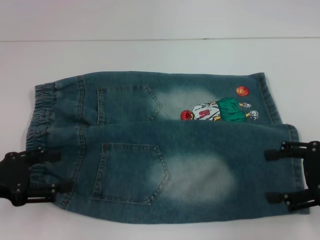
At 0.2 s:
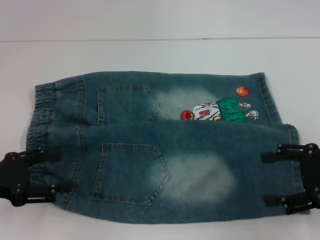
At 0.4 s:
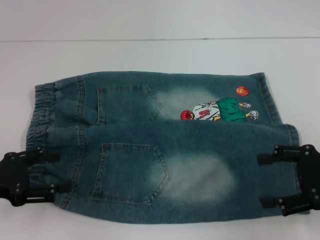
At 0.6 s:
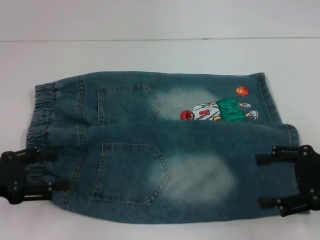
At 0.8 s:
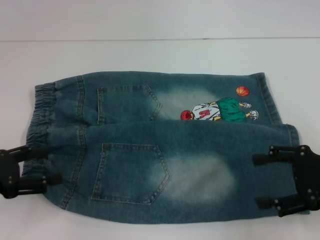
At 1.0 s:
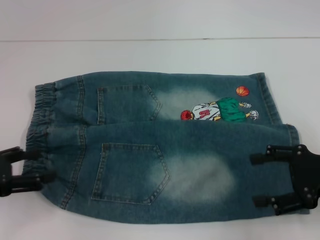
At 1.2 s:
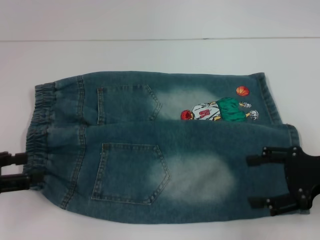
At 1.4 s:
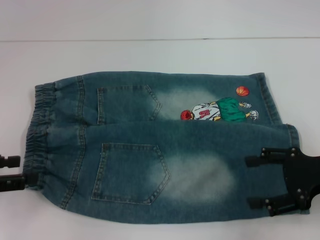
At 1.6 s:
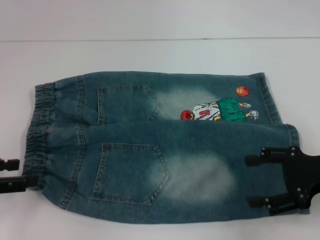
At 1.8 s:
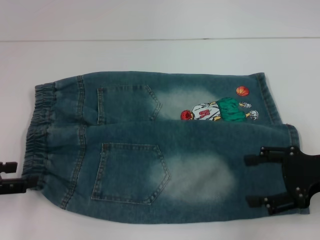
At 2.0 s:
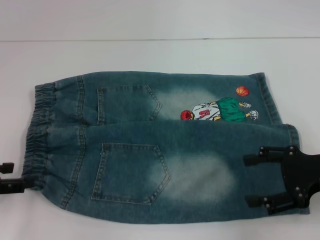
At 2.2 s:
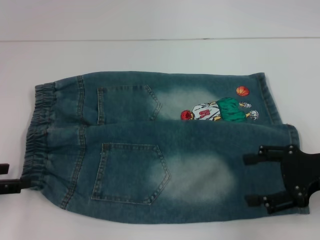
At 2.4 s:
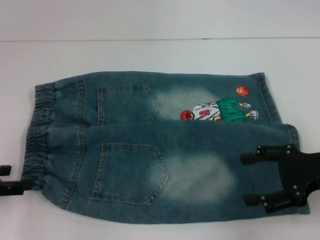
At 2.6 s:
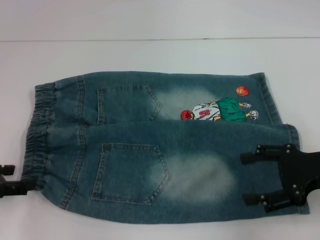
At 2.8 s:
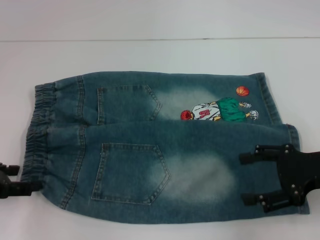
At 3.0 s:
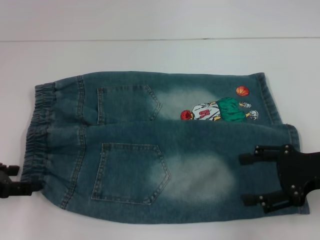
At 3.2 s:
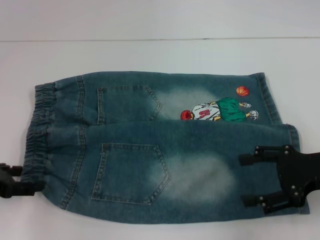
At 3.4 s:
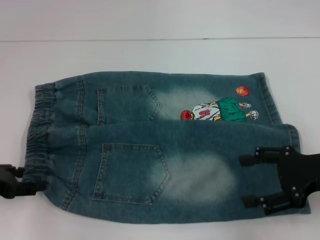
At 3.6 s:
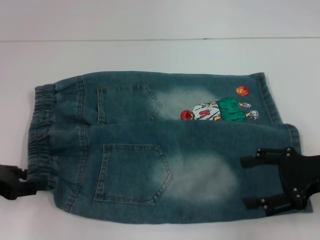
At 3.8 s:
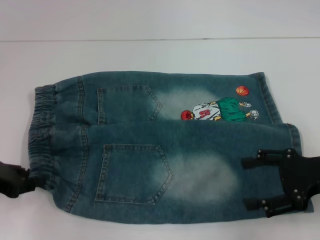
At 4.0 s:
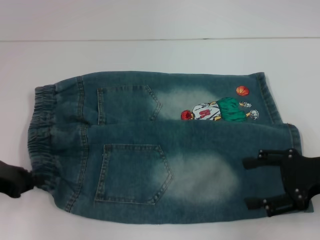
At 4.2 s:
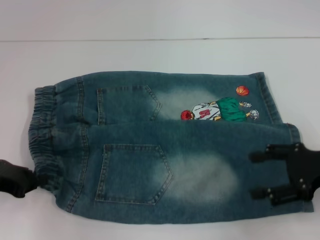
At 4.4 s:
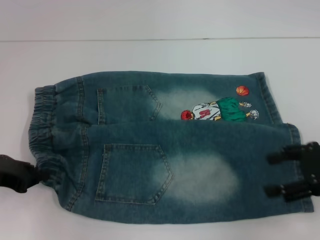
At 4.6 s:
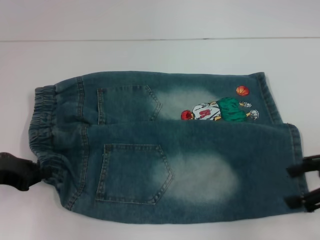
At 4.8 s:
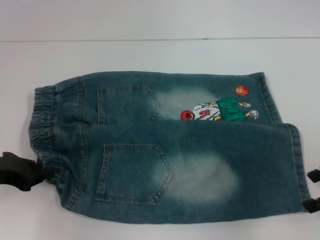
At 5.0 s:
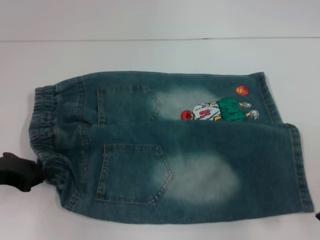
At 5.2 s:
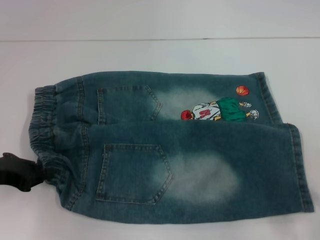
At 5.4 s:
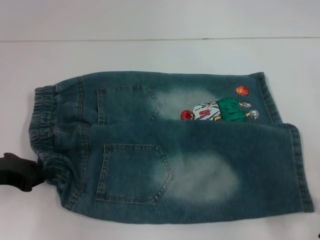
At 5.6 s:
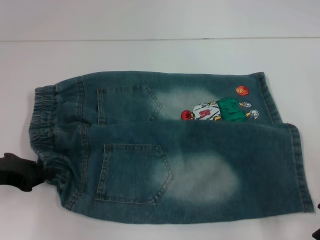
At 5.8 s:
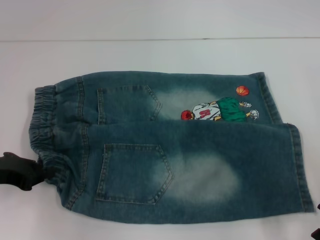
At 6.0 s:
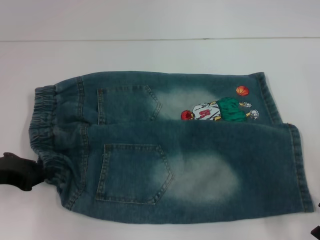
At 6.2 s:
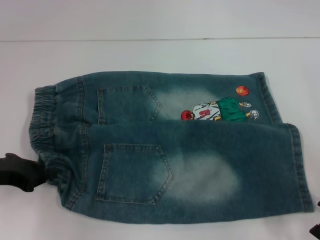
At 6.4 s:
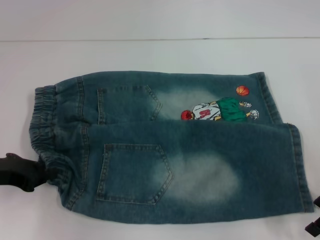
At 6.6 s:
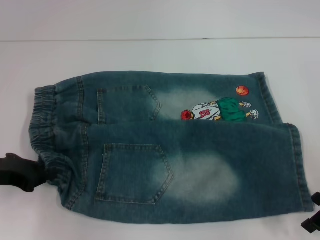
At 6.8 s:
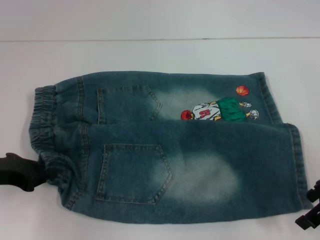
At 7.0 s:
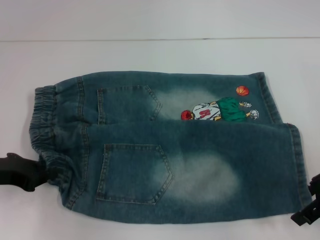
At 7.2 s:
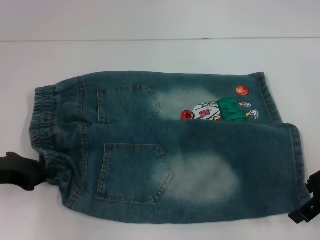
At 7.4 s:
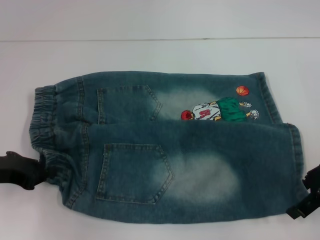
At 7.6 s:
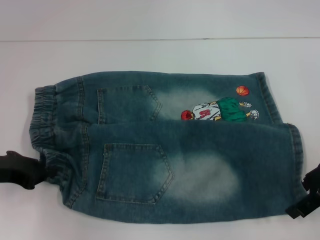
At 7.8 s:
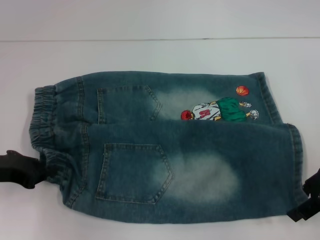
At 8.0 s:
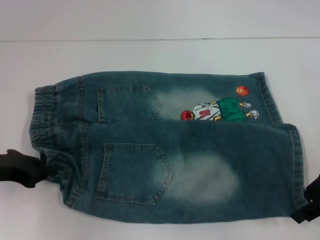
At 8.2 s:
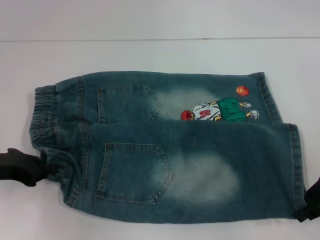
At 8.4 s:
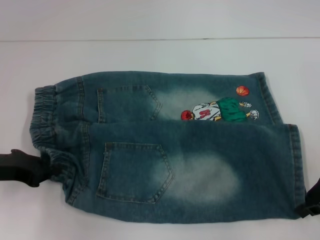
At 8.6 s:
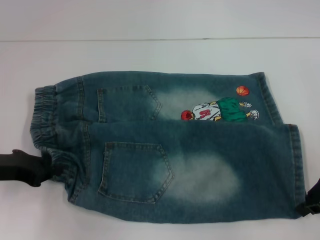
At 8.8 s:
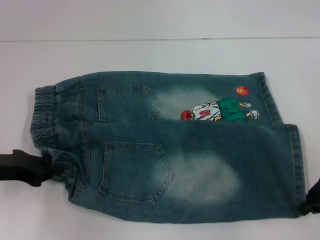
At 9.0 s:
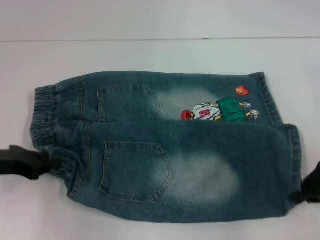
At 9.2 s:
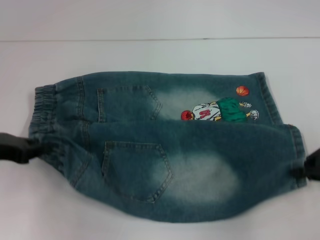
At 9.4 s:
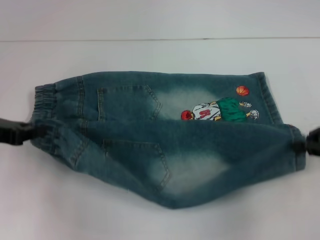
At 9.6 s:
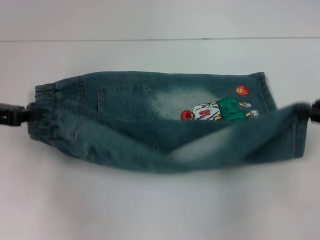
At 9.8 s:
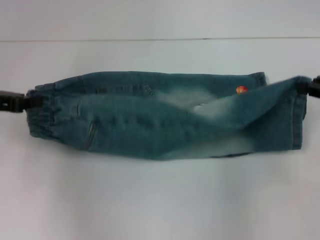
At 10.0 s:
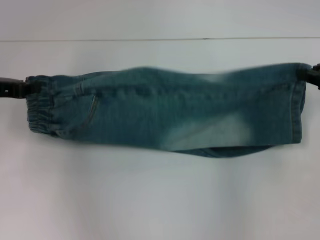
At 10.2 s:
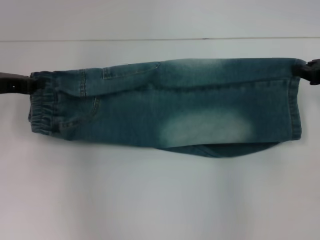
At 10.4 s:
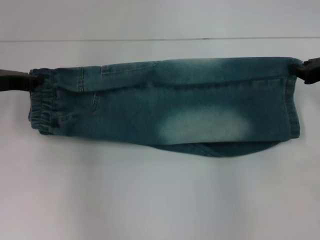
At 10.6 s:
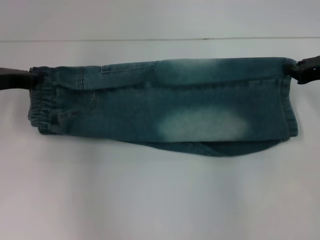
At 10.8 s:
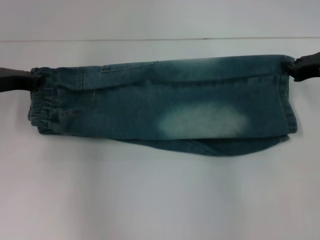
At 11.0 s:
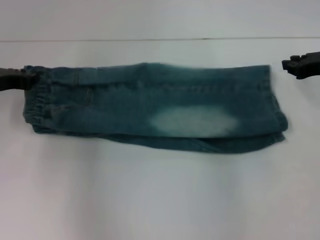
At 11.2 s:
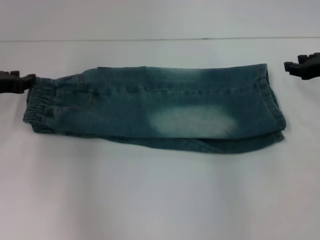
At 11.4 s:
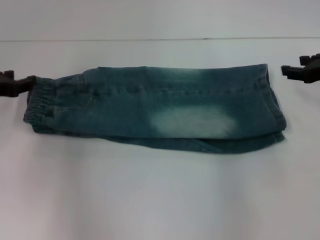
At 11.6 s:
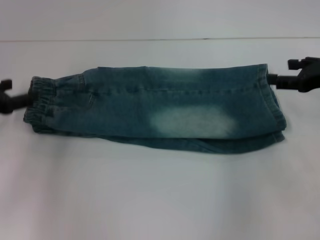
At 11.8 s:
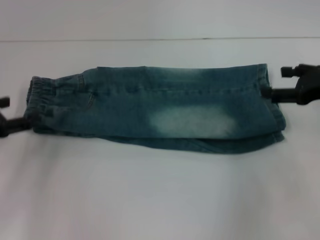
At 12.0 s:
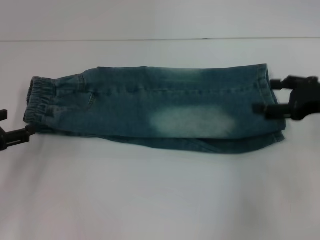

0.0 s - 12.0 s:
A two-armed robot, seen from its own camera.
Step, 0.0 s - 3.6 s: Hold the lower left waistband with your left hand.
Step, 3.8 s - 8.8 s: Grab the lower right pant leg with your right hand.
Step, 9.0 s - 11.2 s: Fold upward with your right hand.
1.6 s - 3.0 s: There are only small adjustments of the grippers.
3.0 s - 4.4 s: The left gripper closes its fingers.
6.0 s - 7.6 s: There are only small adjustments of the grippers.
7.6 s - 9.0 s: The right gripper closes its fingers.
9.0 s - 10.4 s: The grippers both shift forward by some 10 cm.
10.4 s - 12.0 s: The right gripper shifts by some 5 cm, and opens. Meanwhile the left gripper is displaced backward by roughly 10 cm, and opens its fingers.

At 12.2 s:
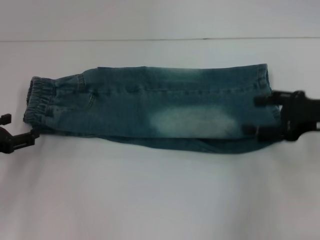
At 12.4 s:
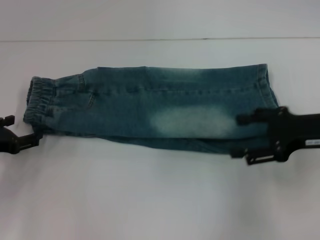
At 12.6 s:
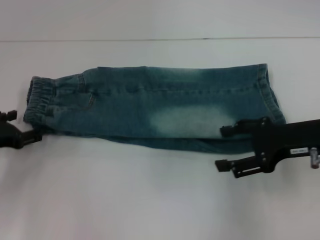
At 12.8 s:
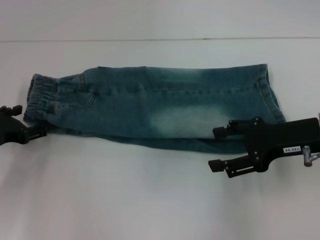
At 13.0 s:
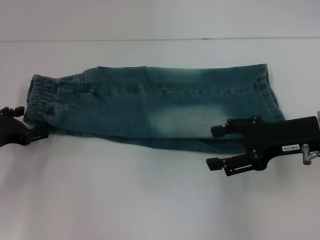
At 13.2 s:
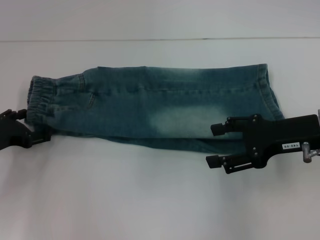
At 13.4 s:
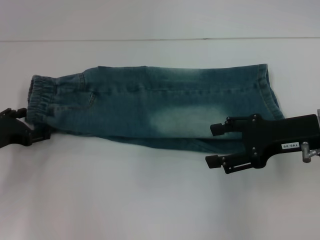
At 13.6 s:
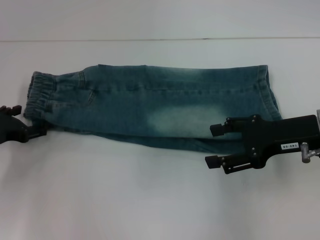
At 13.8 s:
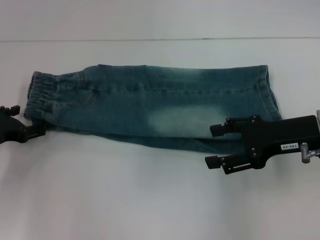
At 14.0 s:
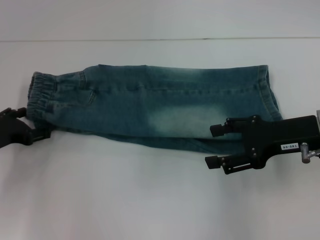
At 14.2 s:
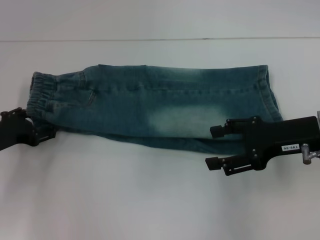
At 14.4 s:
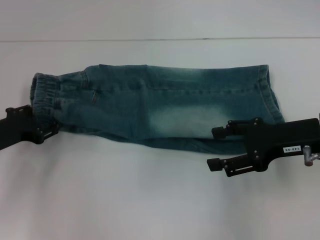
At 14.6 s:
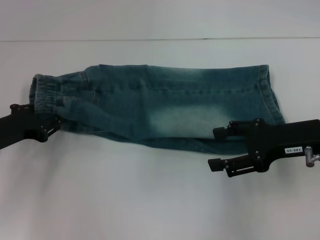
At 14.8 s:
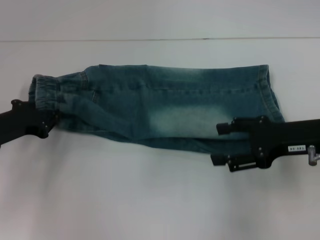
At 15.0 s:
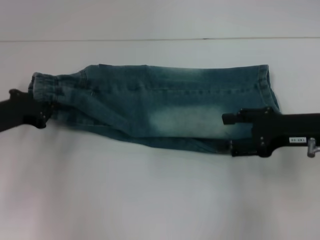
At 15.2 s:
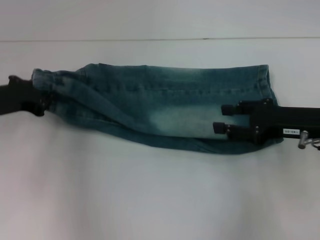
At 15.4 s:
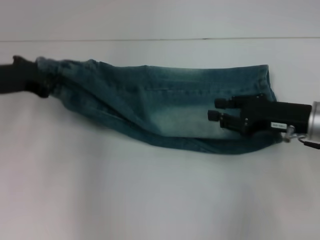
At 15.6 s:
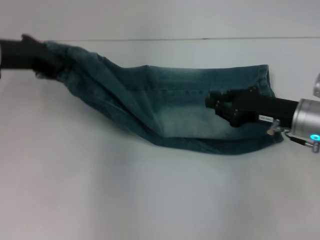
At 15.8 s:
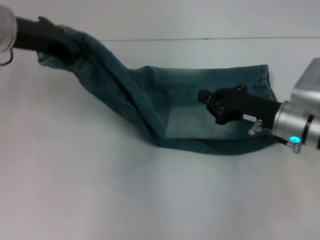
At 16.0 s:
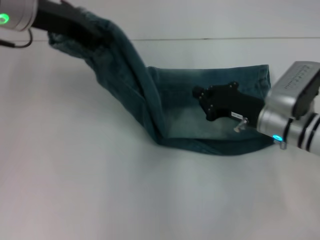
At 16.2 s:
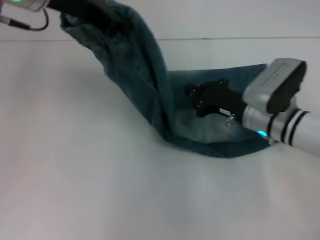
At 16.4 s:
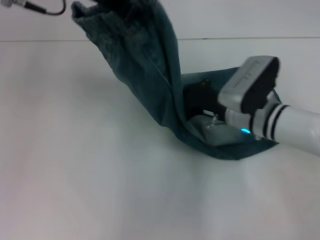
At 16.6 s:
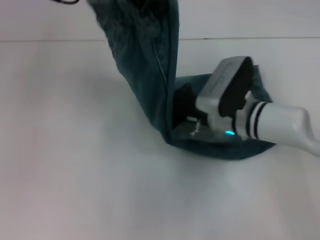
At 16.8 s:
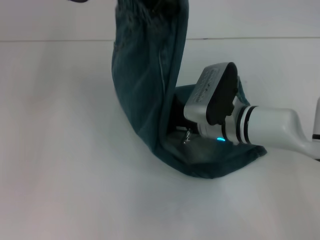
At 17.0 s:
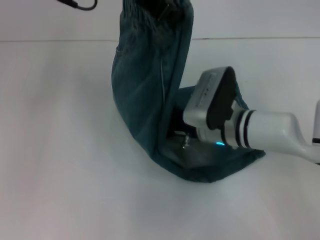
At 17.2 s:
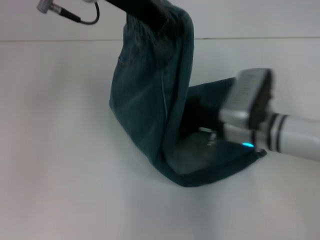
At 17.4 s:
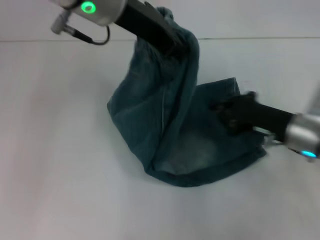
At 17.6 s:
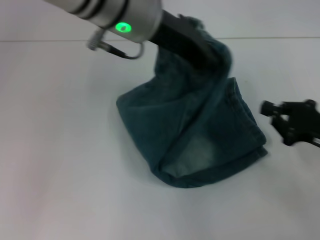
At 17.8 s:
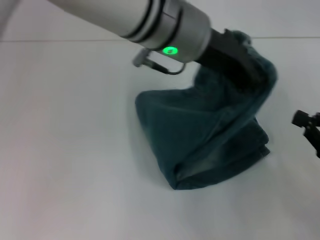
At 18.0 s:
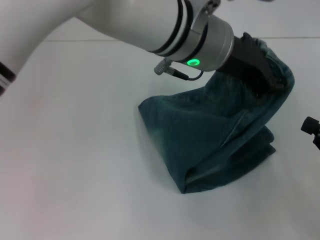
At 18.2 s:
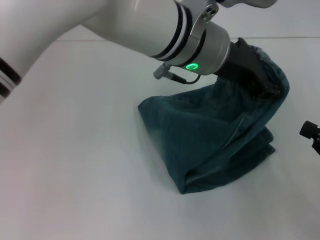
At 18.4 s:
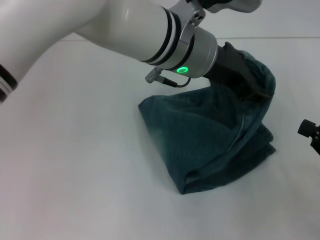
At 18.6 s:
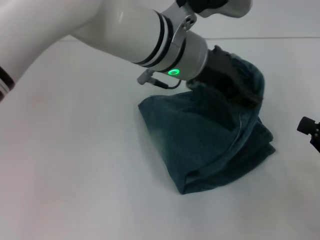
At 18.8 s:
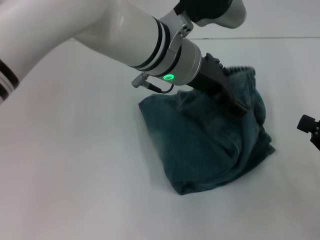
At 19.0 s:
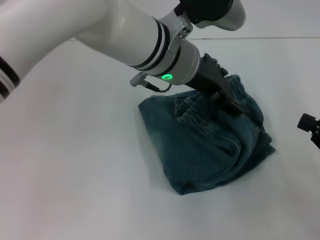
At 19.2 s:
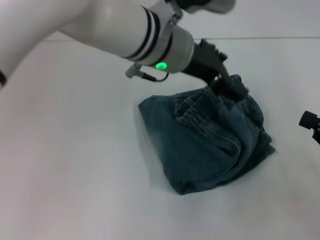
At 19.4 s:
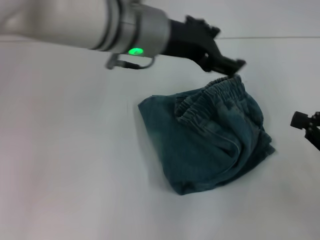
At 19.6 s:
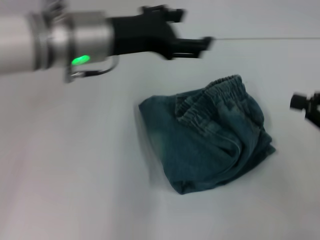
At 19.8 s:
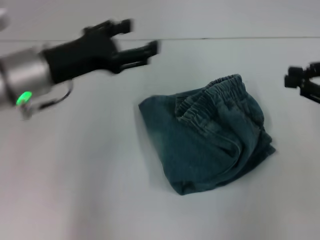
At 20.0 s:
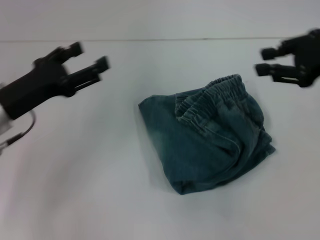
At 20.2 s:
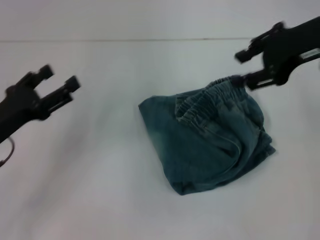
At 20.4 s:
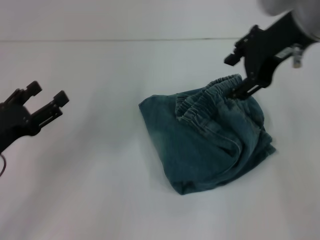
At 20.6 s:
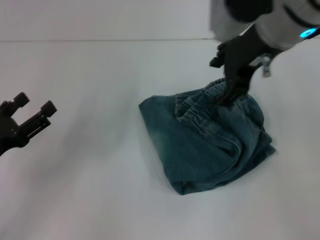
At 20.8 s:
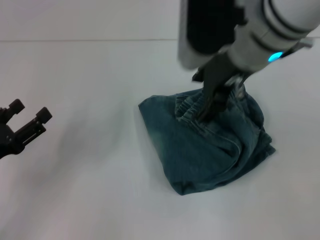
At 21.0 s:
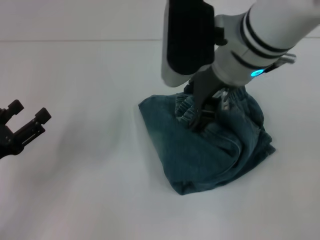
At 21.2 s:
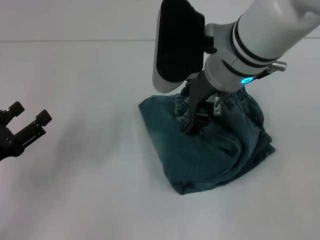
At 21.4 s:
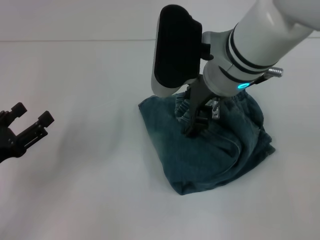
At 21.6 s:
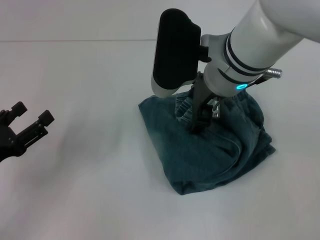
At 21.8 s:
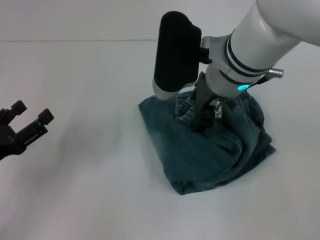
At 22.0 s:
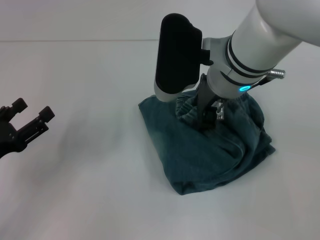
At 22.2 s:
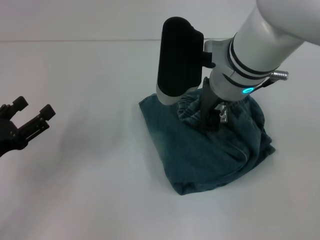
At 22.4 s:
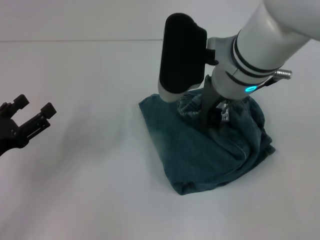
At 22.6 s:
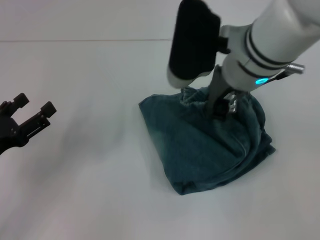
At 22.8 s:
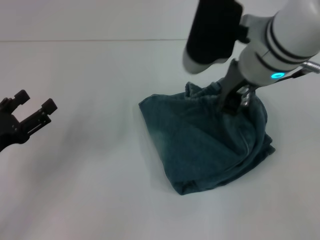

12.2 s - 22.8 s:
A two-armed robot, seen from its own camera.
Step, 12.2 s - 14.4 s: Hold the waistband with your left hand.
Step, 14.6 s - 17.2 s: Press the middle of the pants with your right hand.
Step, 17.4 s - 19.4 s: Fold to the right with your left hand.
12.2 s - 13.8 s: The right gripper shifts roughly 5 cm to the left.
13.8 s - 15.2 s: The left gripper travels upward by approximately 5 cm, and closes up.
15.2 s - 16.8 s: The right gripper shifts roughly 15 cm to the left, and closes up; the left gripper is displaced upward and to the right by roughly 30 cm.
16.8 s - 18.2 s: The left gripper moves to the right and downward, roughly 15 cm, while the right gripper is displaced to the right and backward by about 30 cm.
18.2 s - 19.8 s: The left gripper shifts approximately 20 cm to the left, and opens up. The right gripper moves upward and forward, some 15 cm.
19.8 s - 21.2 s: The left gripper goes some 20 cm backward, downward and to the left, while the right gripper is displaced to the left by some 25 cm, and opens up.
21.2 s - 22.8 s: The right gripper closes its fingers.
